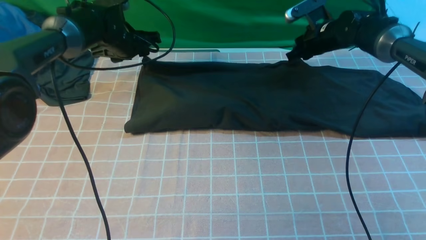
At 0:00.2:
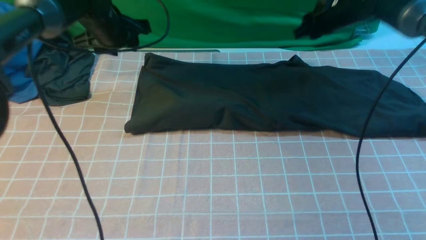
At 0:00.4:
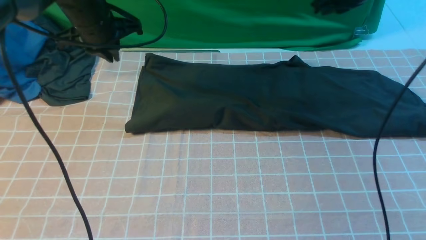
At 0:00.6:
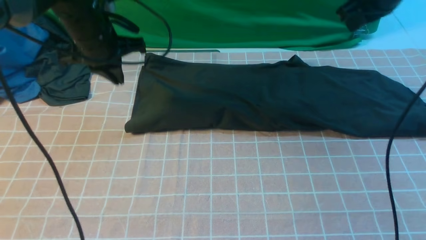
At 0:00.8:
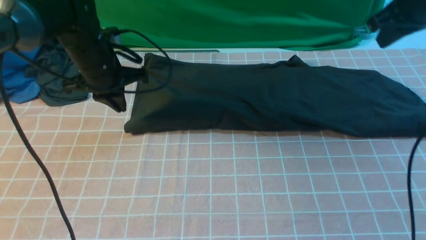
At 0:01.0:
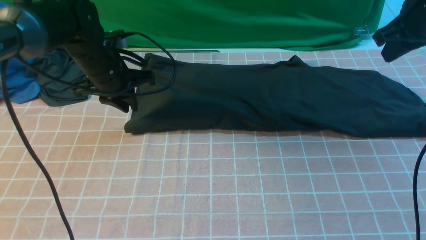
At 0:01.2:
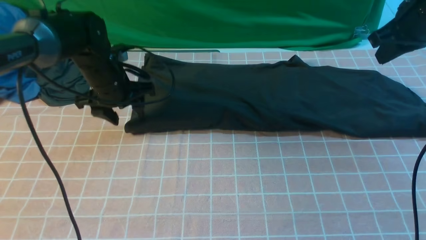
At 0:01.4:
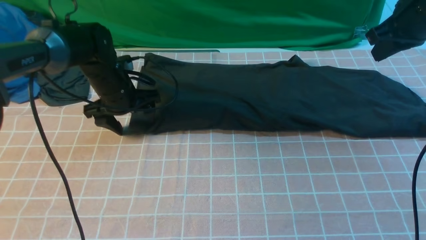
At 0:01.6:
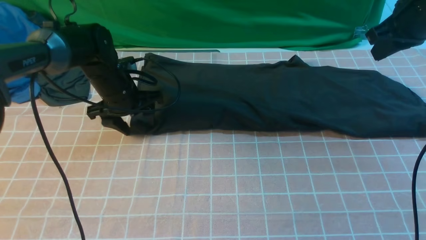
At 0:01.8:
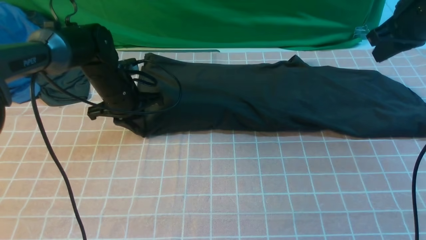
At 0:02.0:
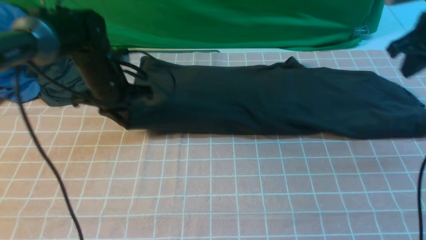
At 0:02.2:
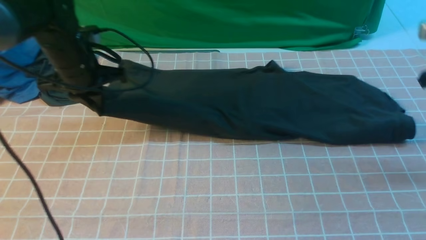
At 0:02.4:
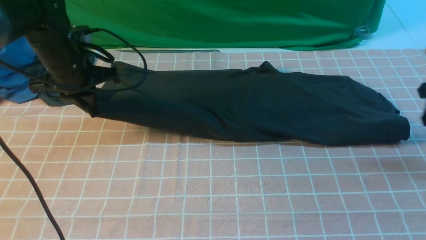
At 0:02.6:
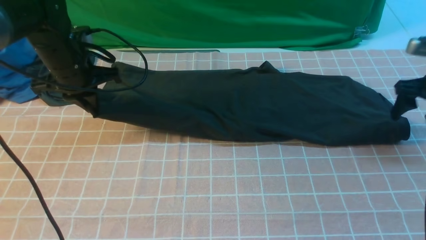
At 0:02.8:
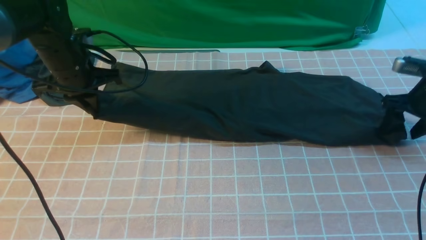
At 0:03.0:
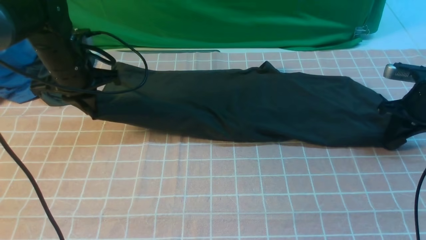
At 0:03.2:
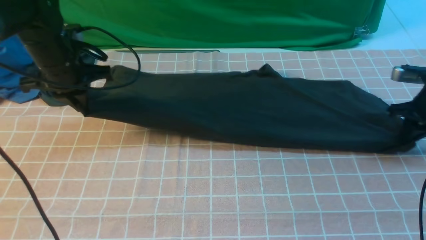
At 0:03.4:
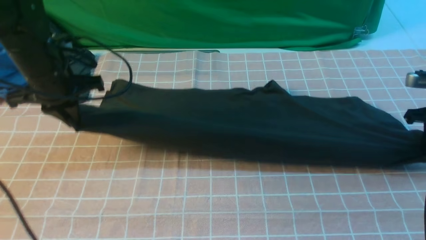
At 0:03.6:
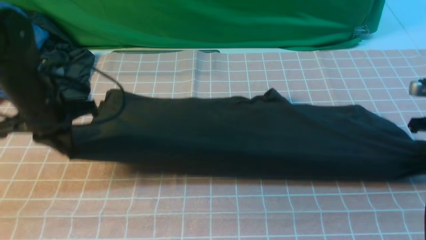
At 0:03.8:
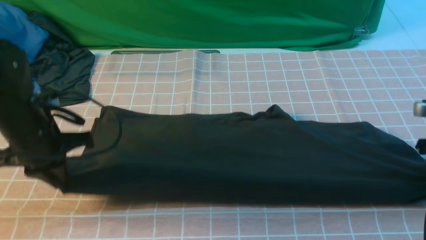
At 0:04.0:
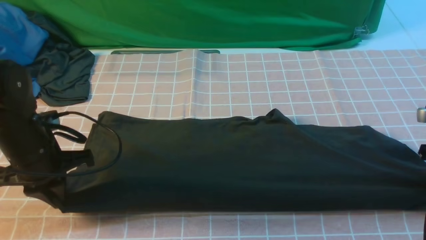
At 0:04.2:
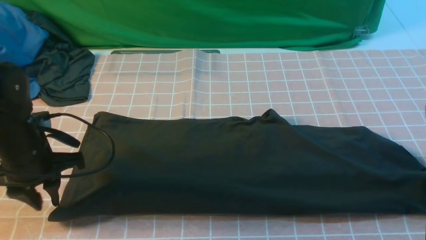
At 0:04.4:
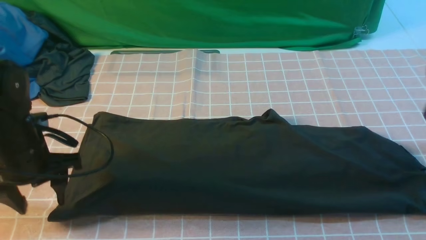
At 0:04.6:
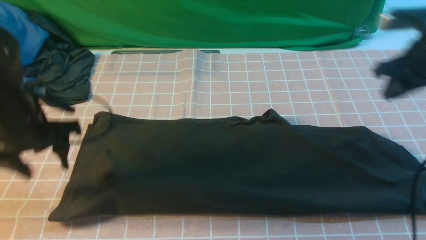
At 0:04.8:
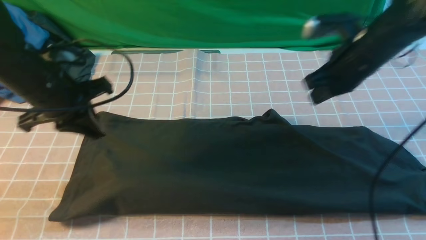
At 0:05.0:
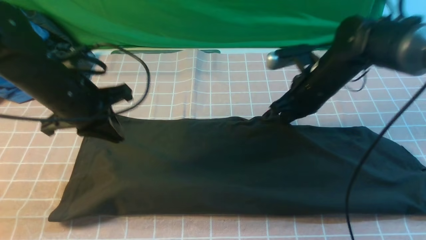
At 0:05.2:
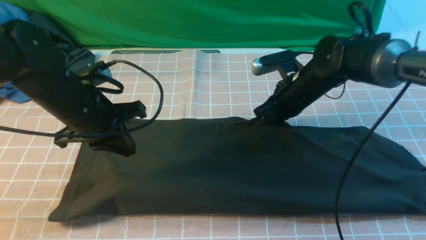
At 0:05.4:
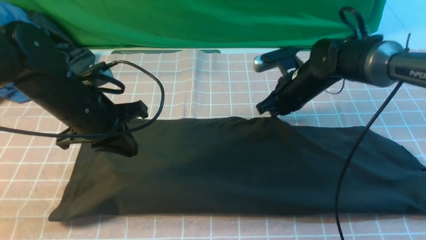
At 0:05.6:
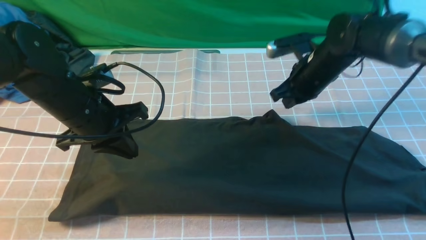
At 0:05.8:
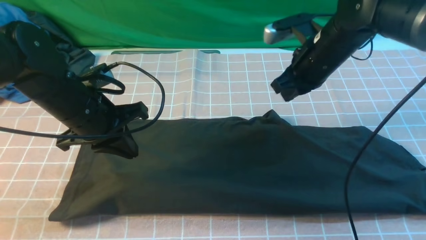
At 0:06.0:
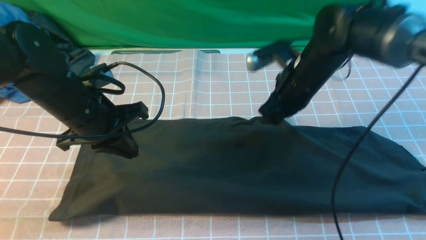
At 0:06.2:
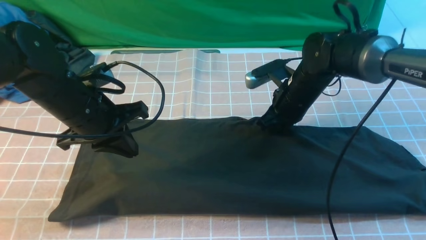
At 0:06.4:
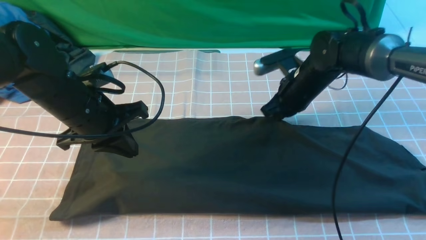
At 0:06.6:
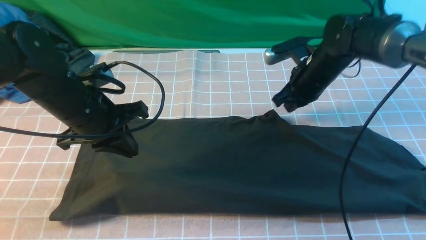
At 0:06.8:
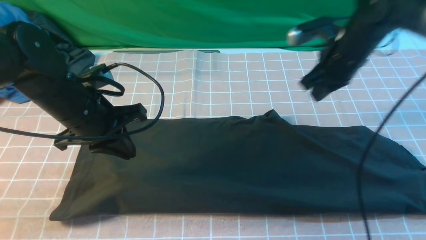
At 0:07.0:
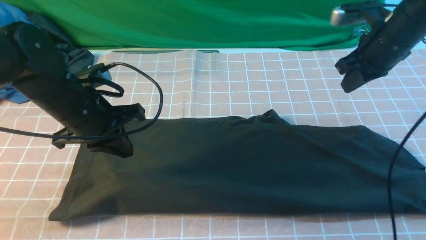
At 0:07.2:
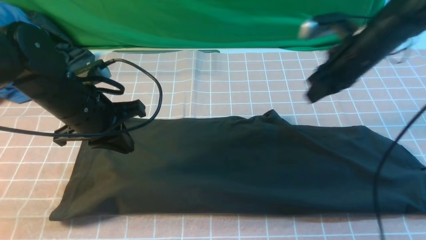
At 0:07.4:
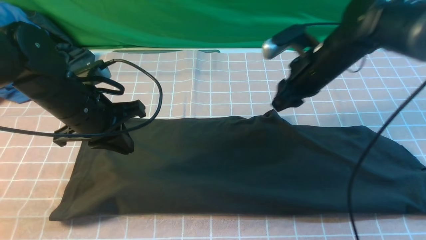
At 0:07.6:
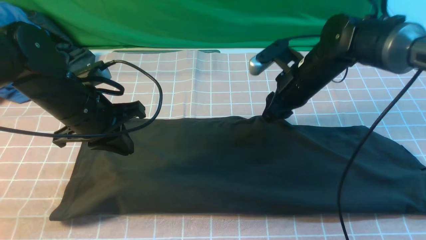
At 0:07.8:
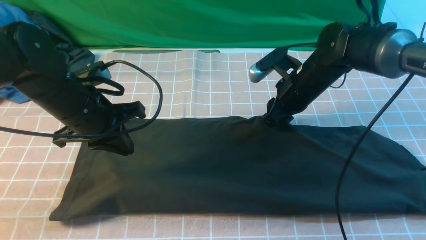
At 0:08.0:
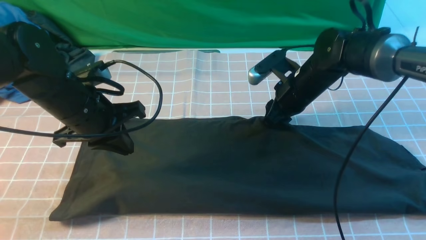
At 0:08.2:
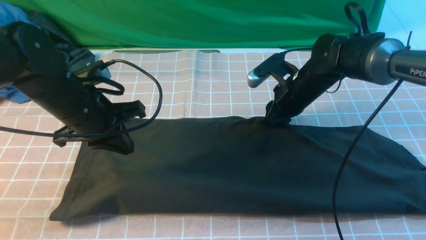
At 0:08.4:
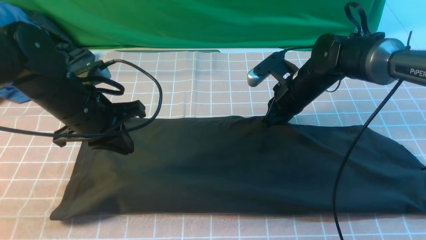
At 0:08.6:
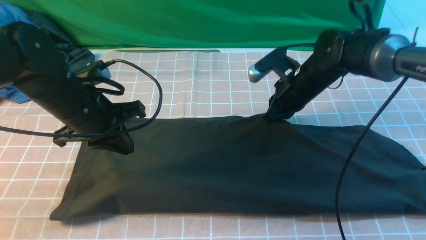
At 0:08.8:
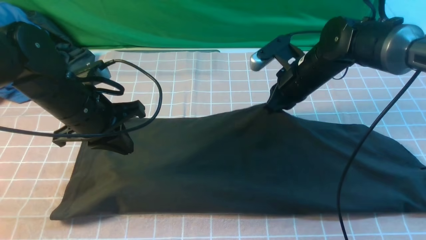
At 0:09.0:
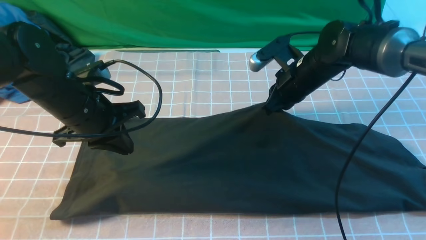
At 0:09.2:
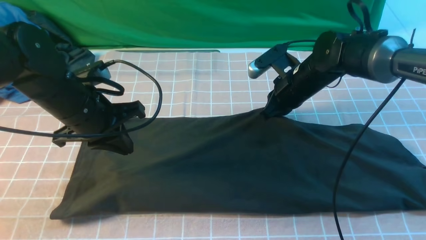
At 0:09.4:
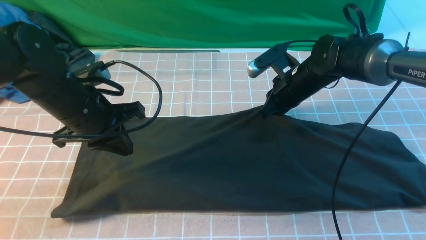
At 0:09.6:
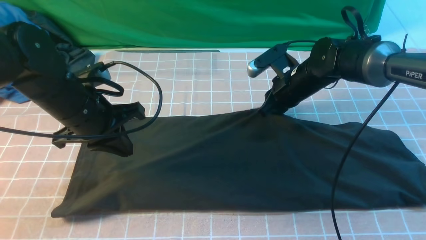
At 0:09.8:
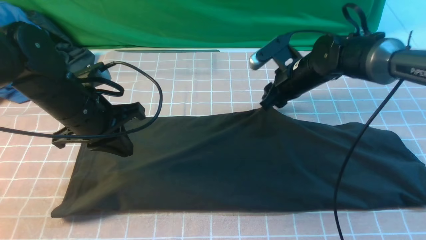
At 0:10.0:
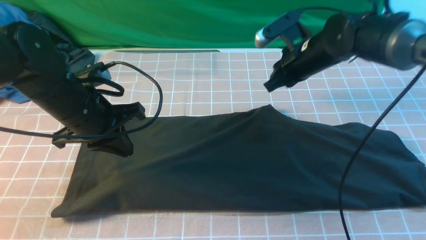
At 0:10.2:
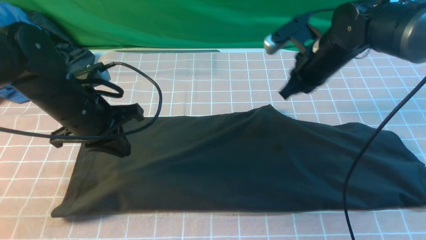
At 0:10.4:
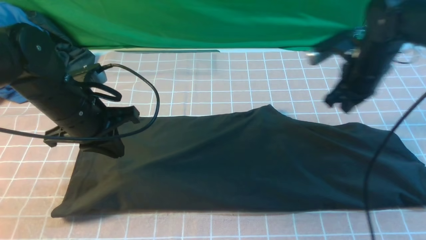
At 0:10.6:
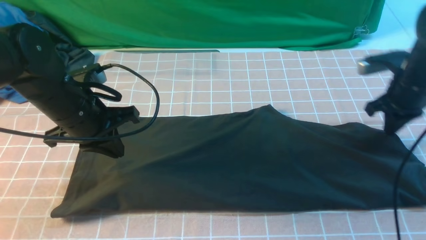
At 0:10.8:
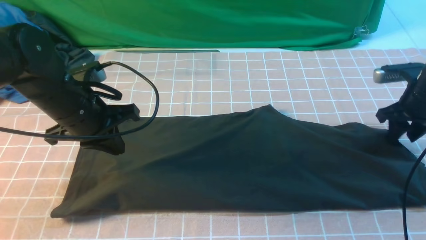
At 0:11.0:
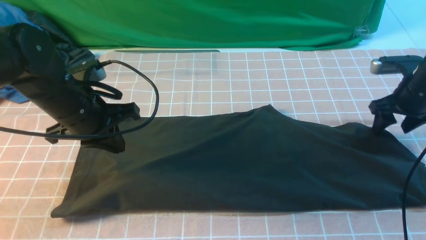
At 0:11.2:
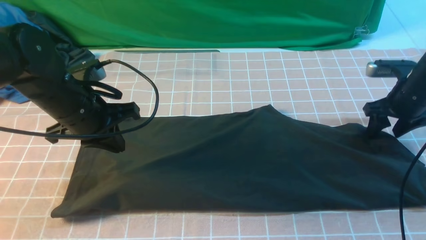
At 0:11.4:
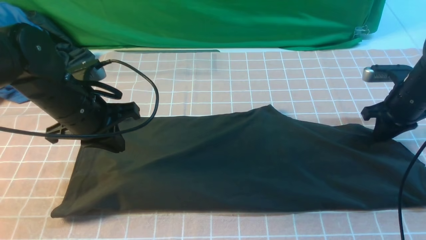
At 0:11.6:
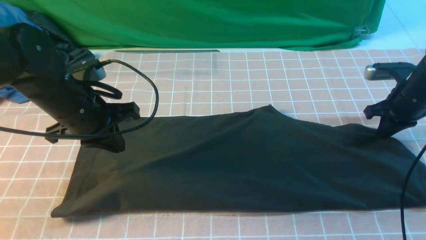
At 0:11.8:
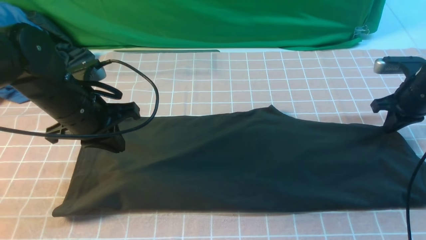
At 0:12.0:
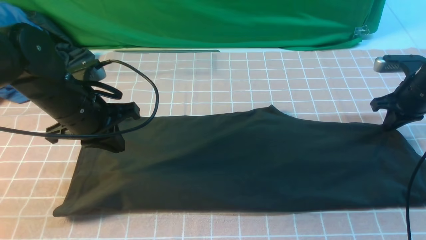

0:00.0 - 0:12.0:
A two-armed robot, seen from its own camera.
0:00.0 - 0:01.6: The left gripper moves backward and downward, some 10 cm, and closes and opens again; the right gripper travels backward, upward and to the right by roughly 20 cm, and closes.
0:01.6 - 0:03.0: The right gripper heads downward and to the right, covering some 20 cm, and opens its fingers. The left gripper goes some 10 cm upward and to the left, and closes up.
0:03.0 - 0:04.4: The right gripper travels upward by roughly 5 cm. Meanwhile the left gripper travels backward by approximately 10 cm, and opens its fingers.
0:04.4 - 0:06.0: The left gripper goes some 10 cm to the right, and closes up. The right gripper moves to the left, about 20 cm, and closes up.
0:06.0 - 0:07.6: The right gripper travels to the right and back again, about 10 cm each way, and opens its fingers.
0:07.6 - 0:09.0: The right gripper closes up.
0:09.0 - 0:10.4: The right gripper moves to the right, roughly 10 cm.
0:10.4 - 0:12.0: The right gripper heads to the right, covering approximately 10 cm, and opens, then closes once more.

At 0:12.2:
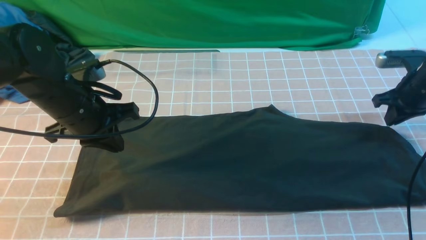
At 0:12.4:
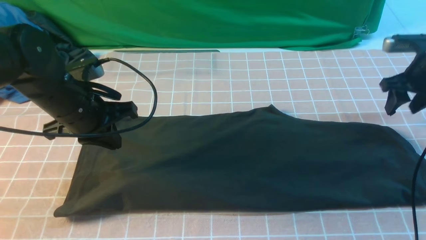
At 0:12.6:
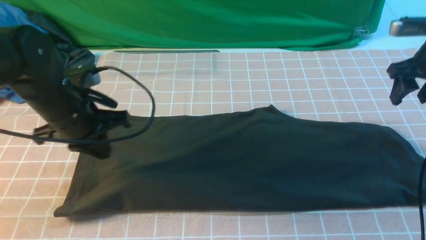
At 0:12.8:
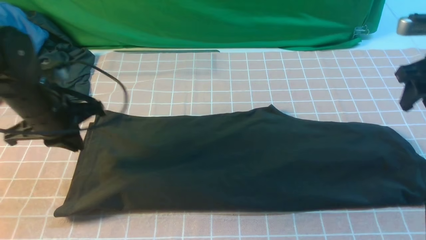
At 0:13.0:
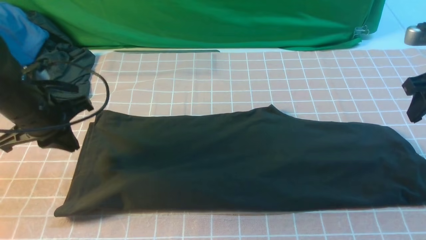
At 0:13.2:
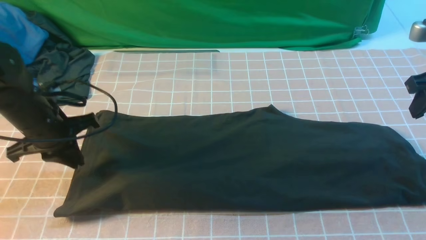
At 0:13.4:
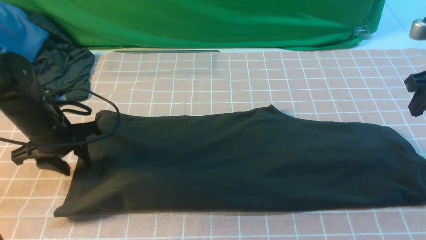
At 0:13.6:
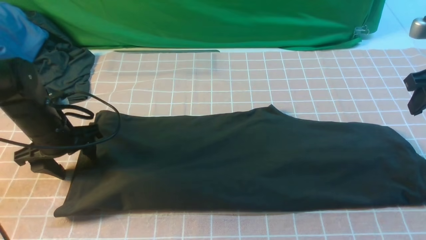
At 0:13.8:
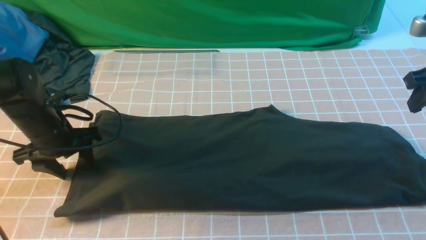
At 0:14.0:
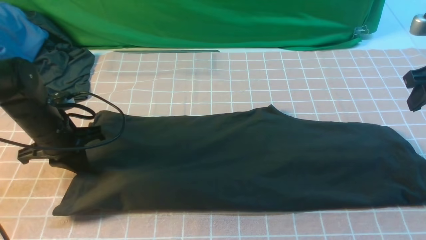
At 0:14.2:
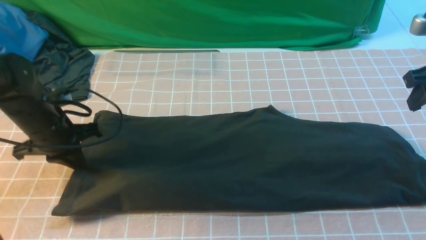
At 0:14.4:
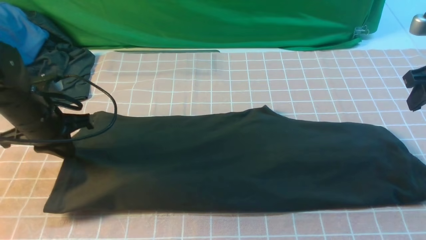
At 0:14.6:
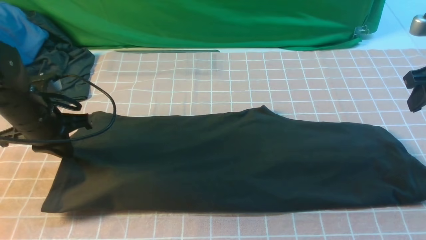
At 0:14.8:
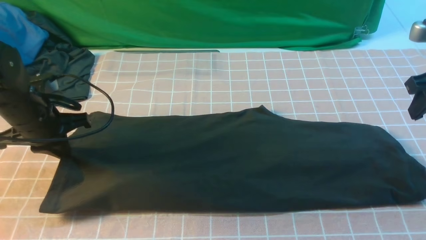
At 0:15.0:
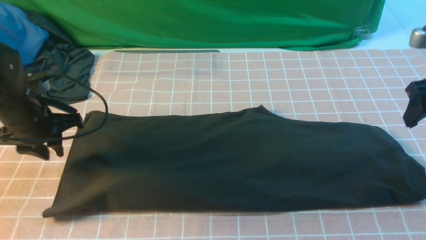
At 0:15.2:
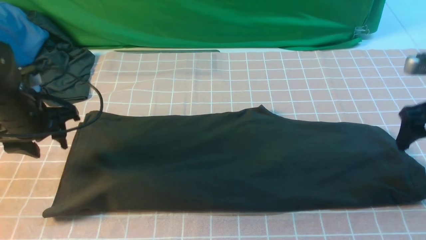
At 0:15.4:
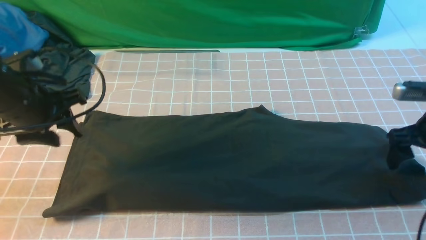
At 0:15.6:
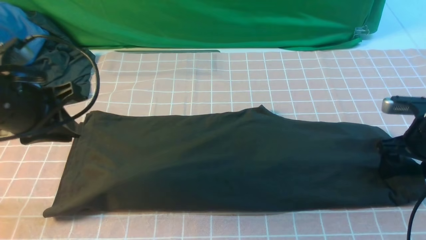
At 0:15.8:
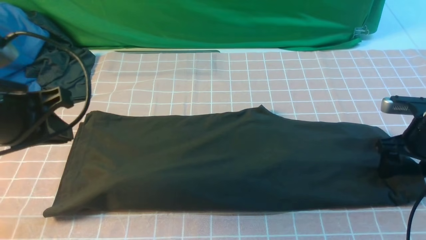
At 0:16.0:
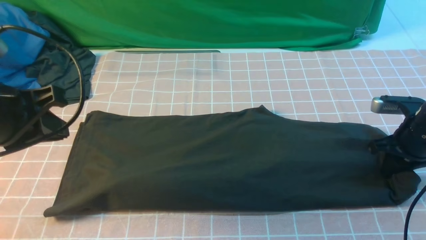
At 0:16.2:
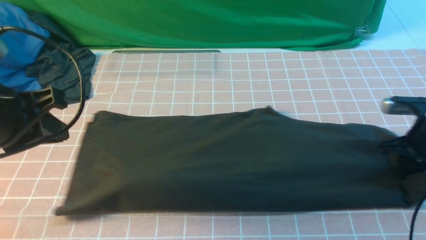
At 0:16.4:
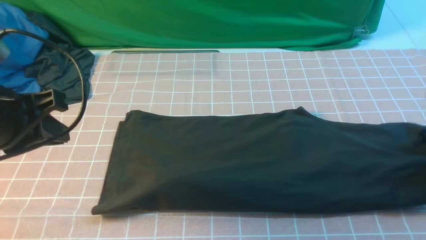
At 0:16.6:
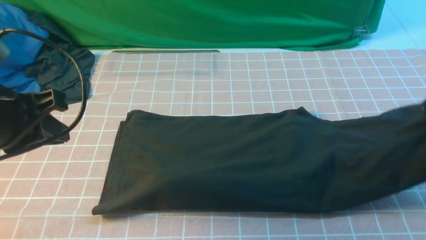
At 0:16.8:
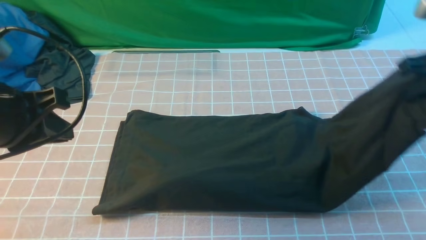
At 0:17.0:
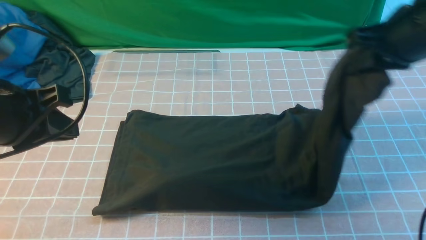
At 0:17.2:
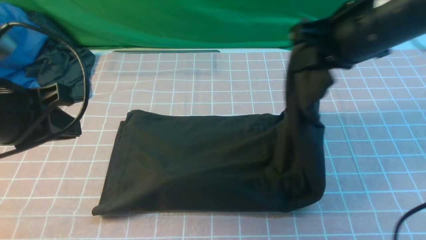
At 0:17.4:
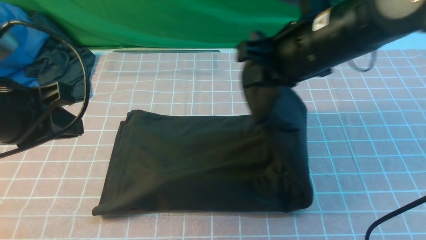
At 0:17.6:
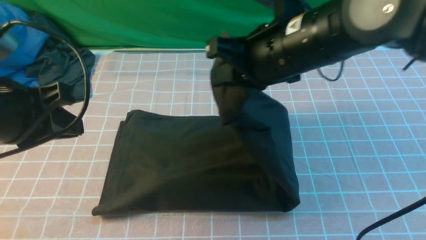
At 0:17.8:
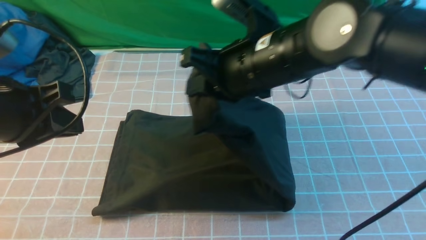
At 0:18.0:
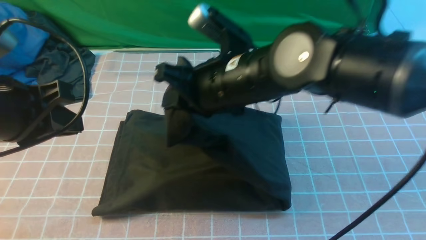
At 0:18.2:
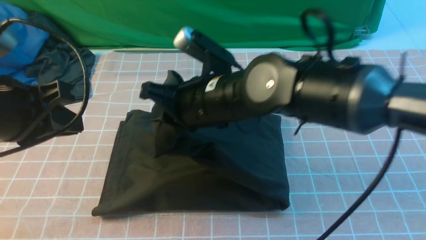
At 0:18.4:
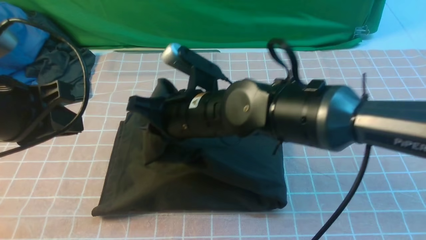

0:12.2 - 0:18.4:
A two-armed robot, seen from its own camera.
Step, 0:12.2 - 0:16.0: use the right arm to clamp the right edge of the fabric.
0:12.2 - 0:13.8: The left gripper shifts roughly 10 cm downward and to the left, and opens up. The right gripper moves upward and backward, approximately 15 cm.
0:13.8 - 0:15.4: The right gripper goes about 10 cm downward, and opens up; the left gripper moves upward, approximately 10 cm, and closes, then opens again.
0:15.4 - 0:16.8: The left gripper is displaced backward and upward by roughly 10 cm, and closes its fingers. Meanwhile the right gripper is displaced upward and to the left by about 15 cm, and closes.
0:16.8 - 0:18.4: The right gripper moves to the left, about 30 cm.
